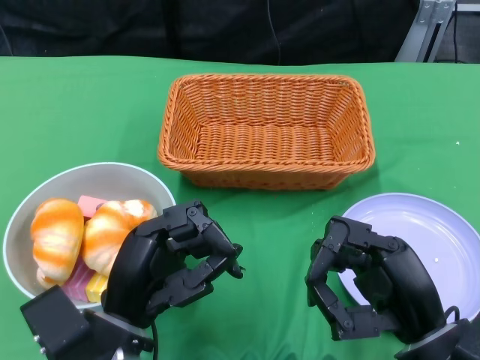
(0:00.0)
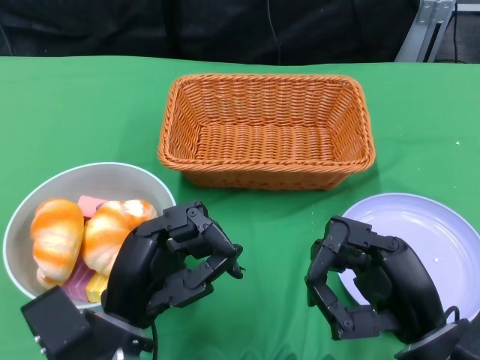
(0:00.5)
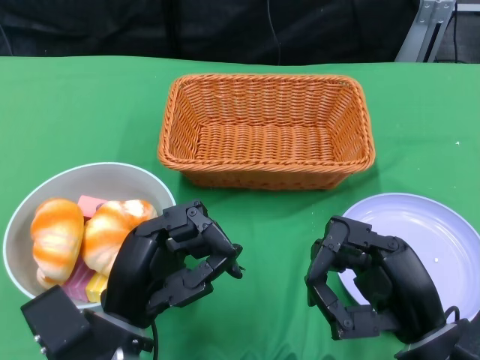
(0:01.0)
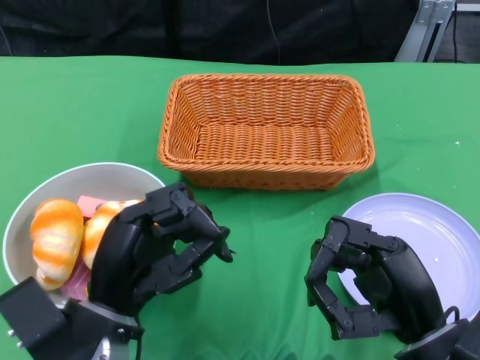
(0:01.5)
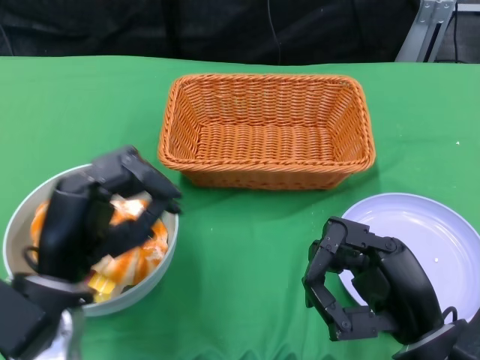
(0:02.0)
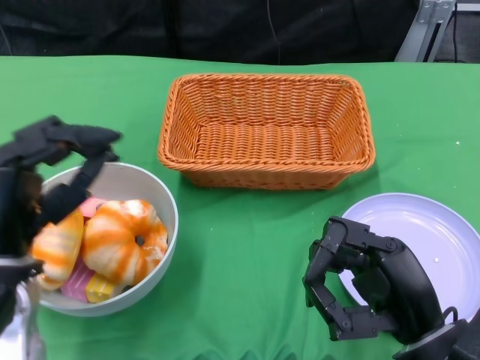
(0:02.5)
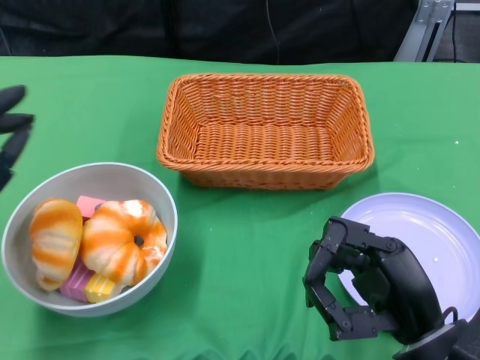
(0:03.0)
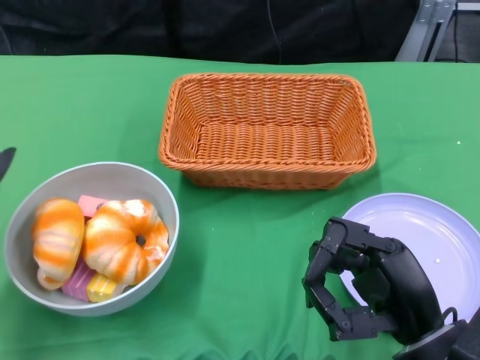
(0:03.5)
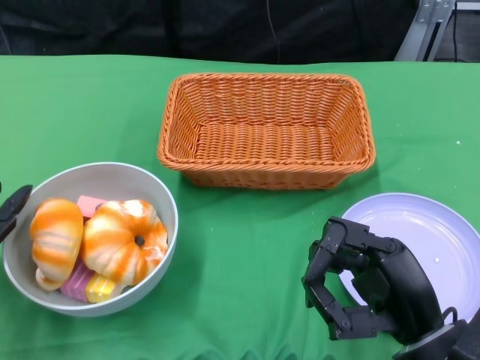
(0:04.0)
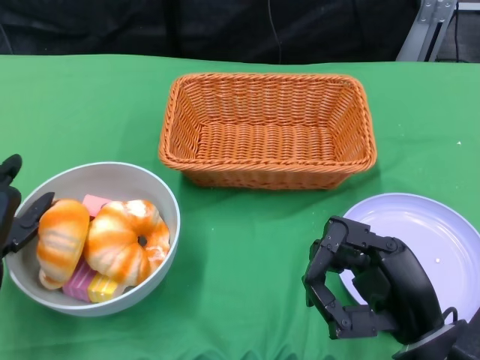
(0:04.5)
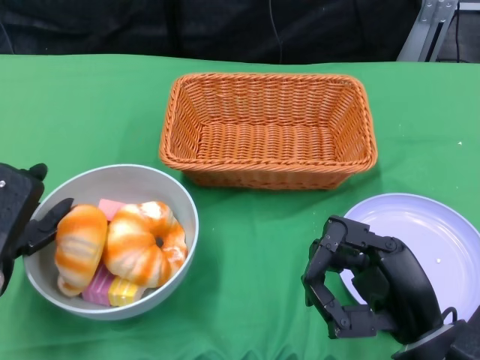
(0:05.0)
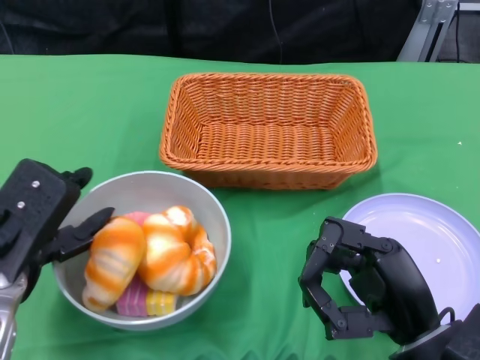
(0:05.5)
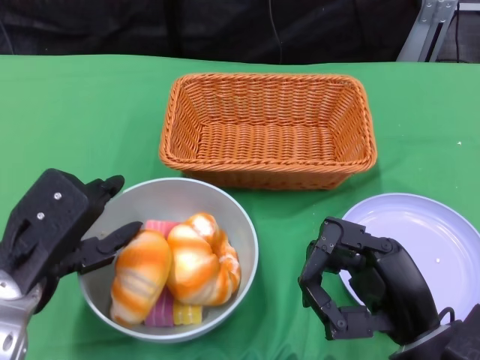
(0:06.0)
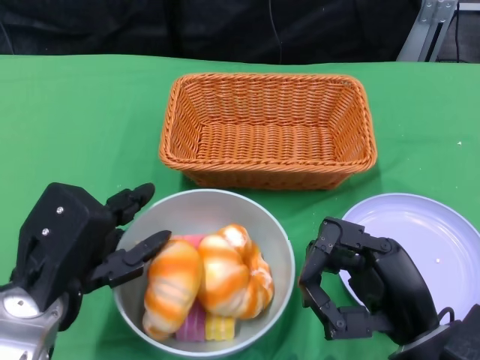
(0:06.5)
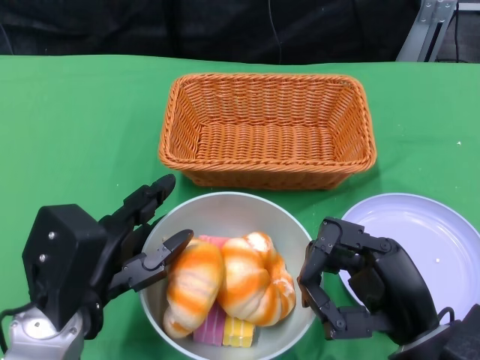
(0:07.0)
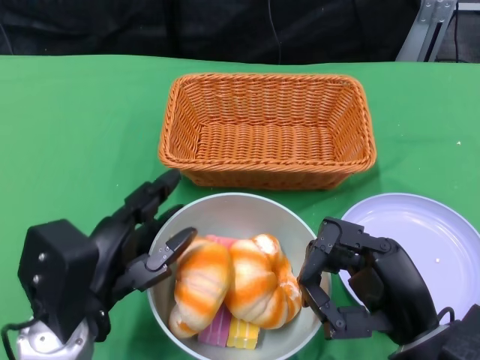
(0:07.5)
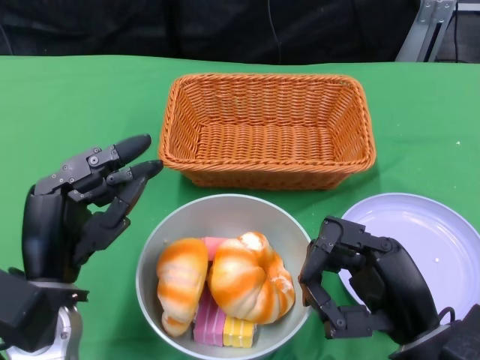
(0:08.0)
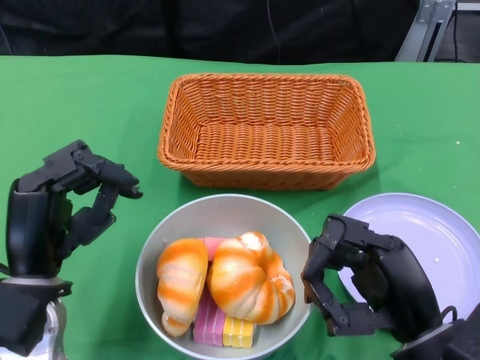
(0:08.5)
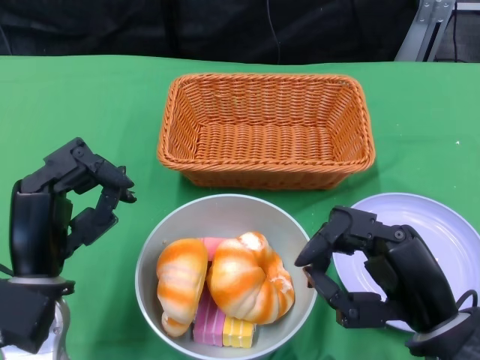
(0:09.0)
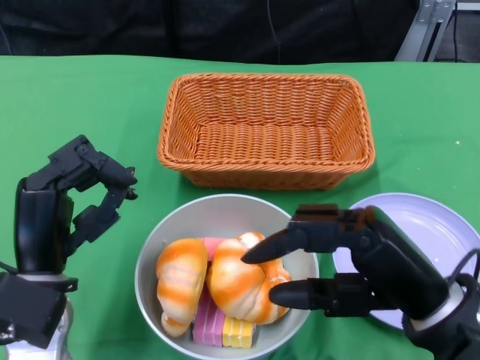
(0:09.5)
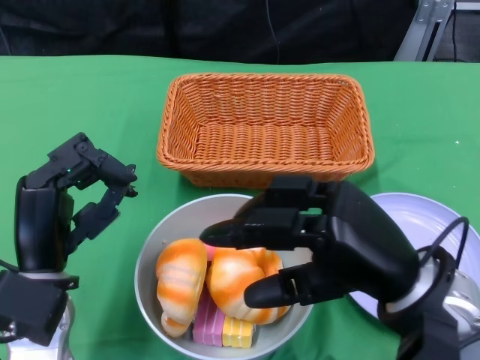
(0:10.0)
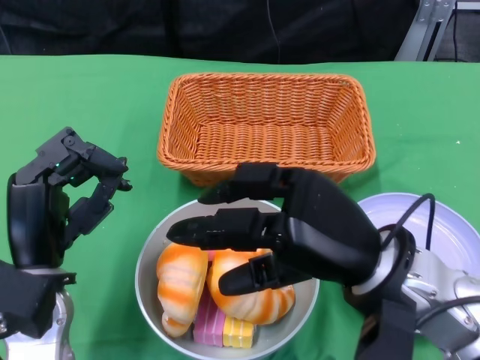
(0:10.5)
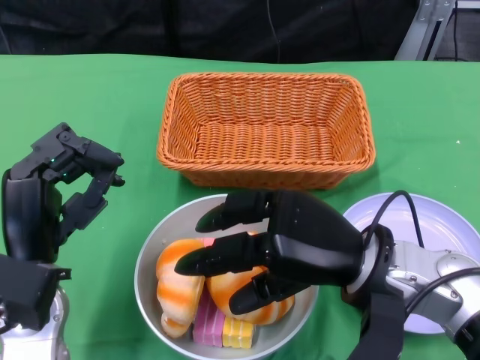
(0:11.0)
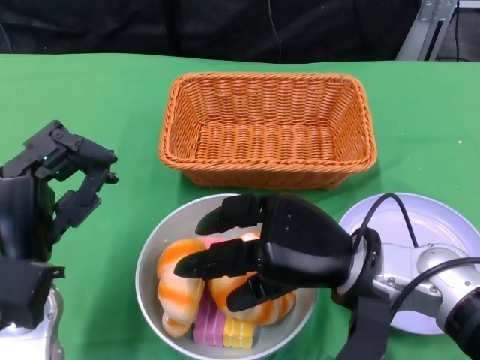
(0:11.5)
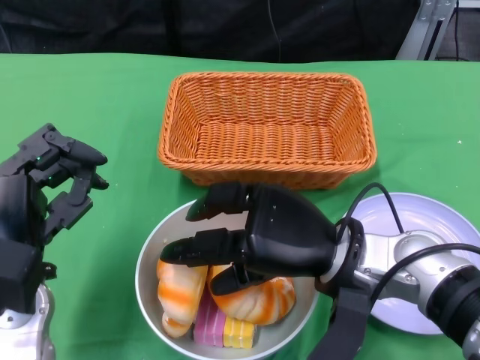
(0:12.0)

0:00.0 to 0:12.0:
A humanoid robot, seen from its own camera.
Step, 0:00.0 to 0:08.5: Push the bowl to the center of the table using the left gripper.
0:02.0 to 0:04.0: The left hand is displaced to the left by some 10 cm.
0:04.0 to 0:06.0: The left hand shifts some 5 cm to the right and upward.
0:08.0 to 0:10.0: The right hand is displaced upward by some 5 cm.
0:10.0 to 0:12.0: The right hand goes some 10 cm to the left and forward.

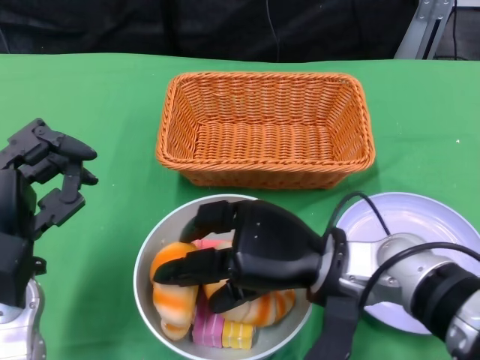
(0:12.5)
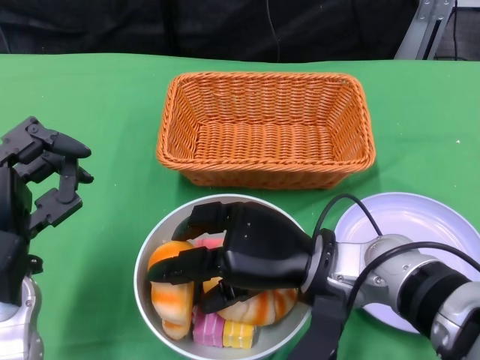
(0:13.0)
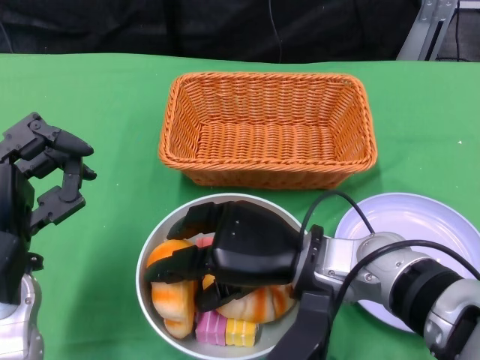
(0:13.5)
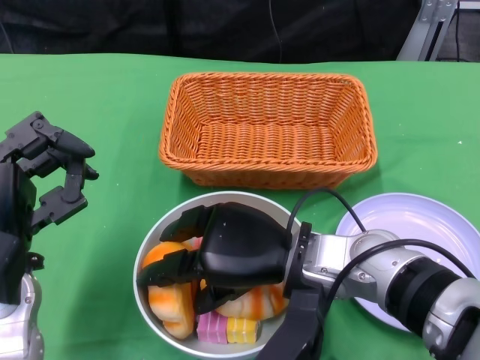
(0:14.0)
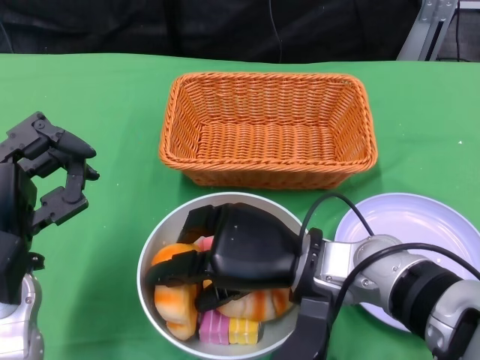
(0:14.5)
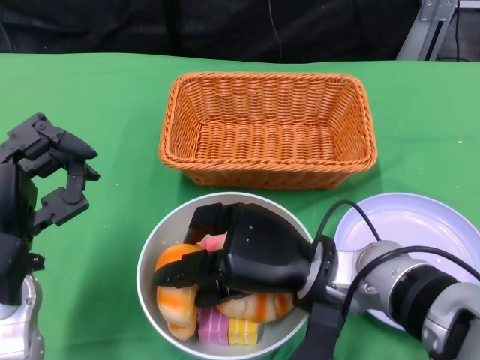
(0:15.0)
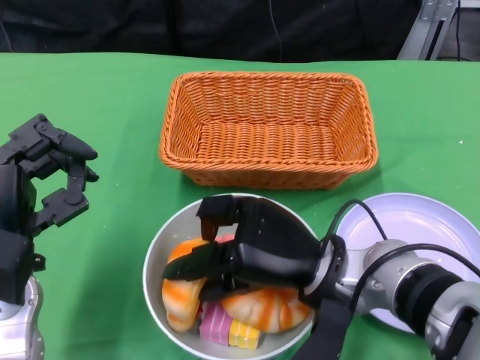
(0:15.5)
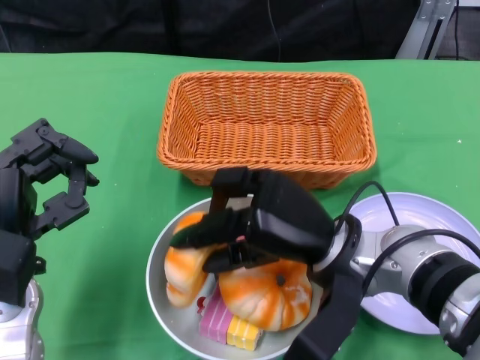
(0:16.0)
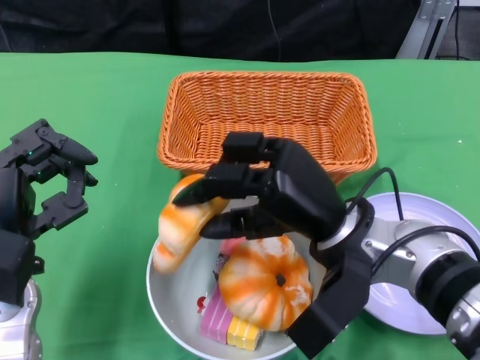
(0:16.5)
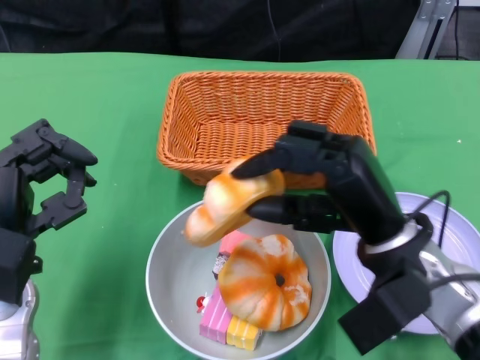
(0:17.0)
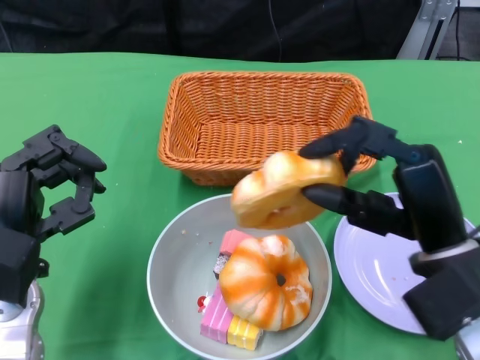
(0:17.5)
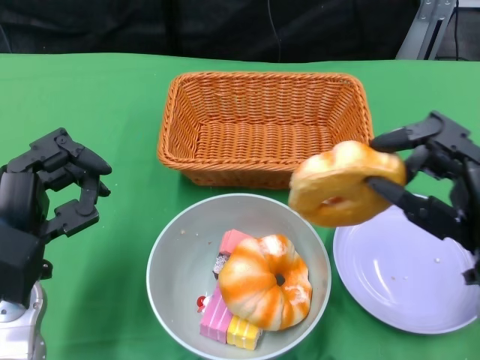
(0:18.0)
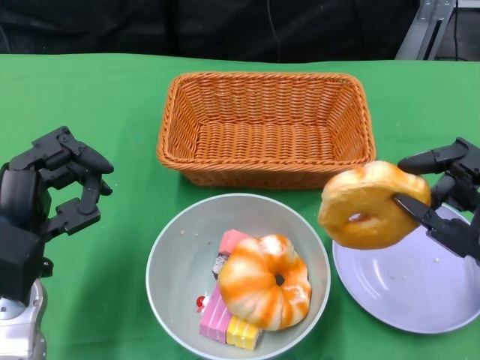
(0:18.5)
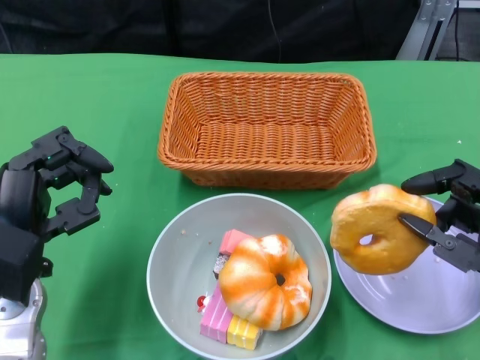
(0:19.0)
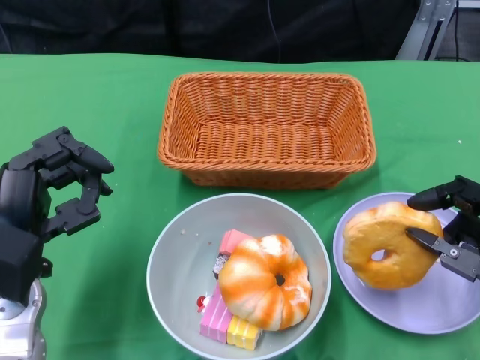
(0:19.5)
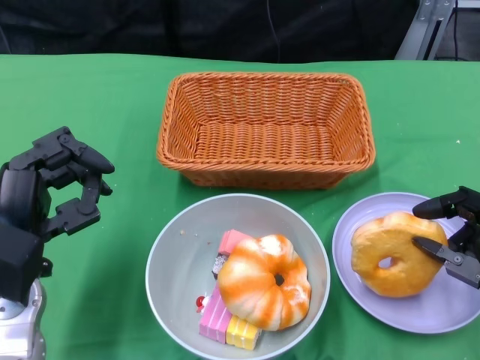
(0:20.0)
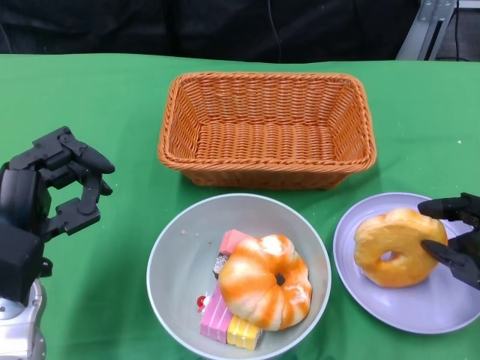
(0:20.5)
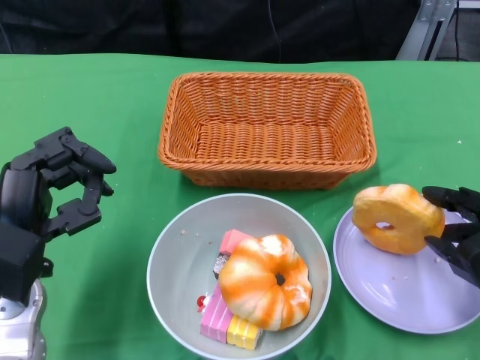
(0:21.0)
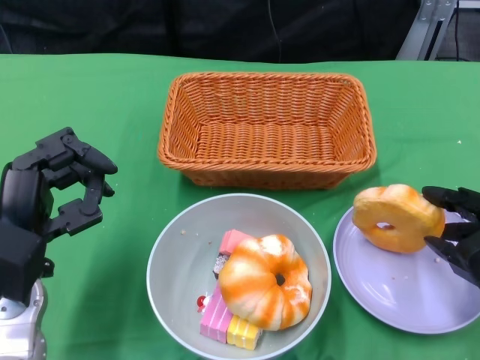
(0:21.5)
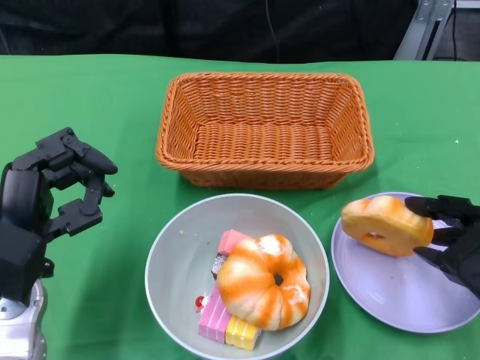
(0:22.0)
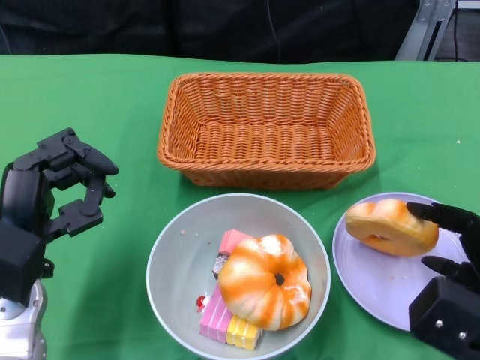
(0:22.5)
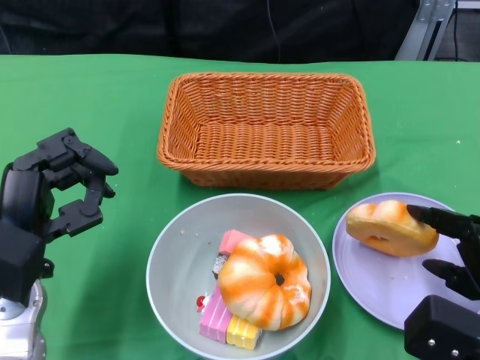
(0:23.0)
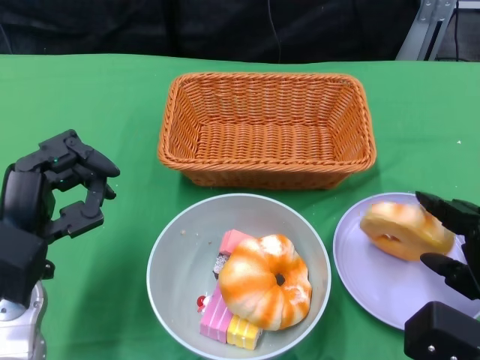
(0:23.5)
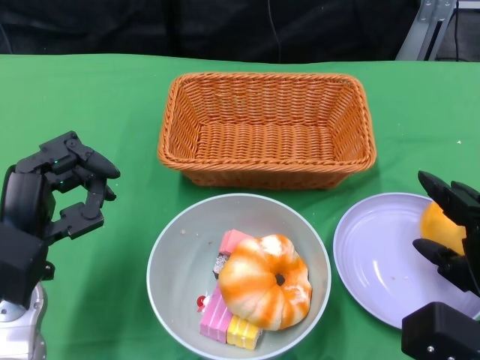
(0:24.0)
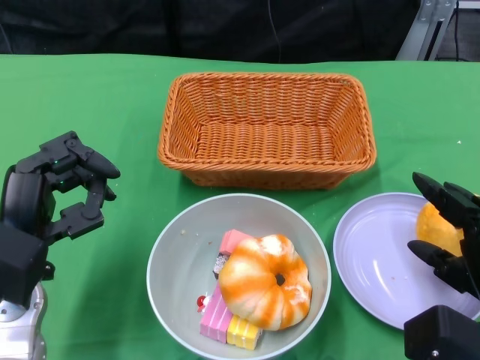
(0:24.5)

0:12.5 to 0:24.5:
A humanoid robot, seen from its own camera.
0:16.5 to 0:18.5: The right hand goes roughly 15 cm to the right and backward.
0:22.5 to 0:24.5: The hands make only small movements.

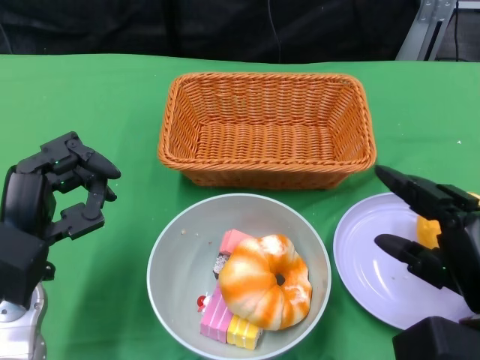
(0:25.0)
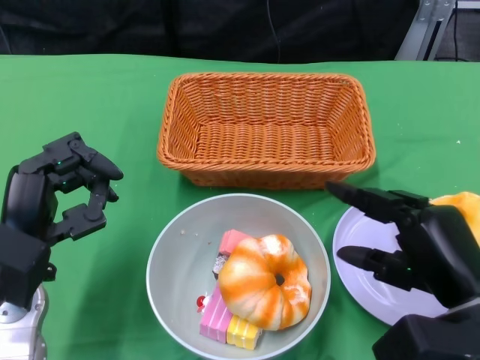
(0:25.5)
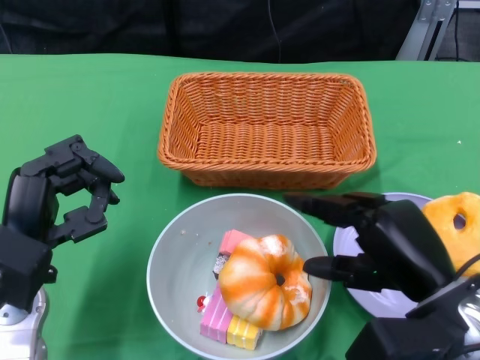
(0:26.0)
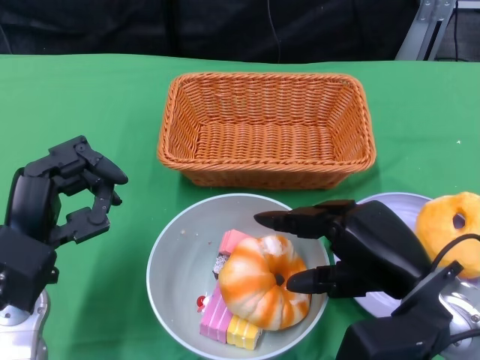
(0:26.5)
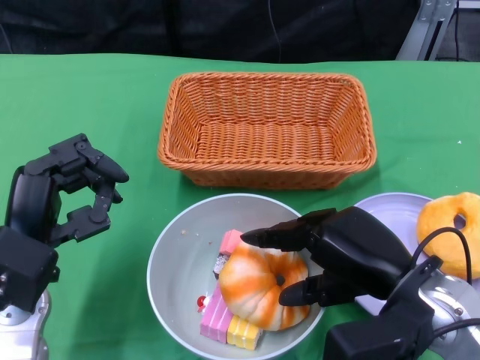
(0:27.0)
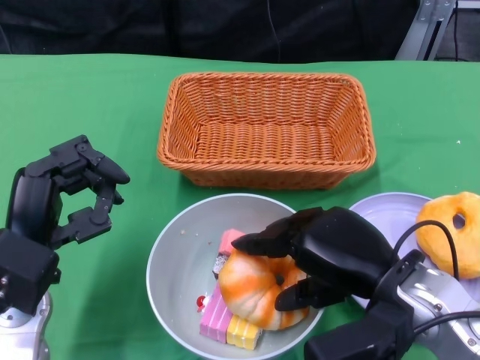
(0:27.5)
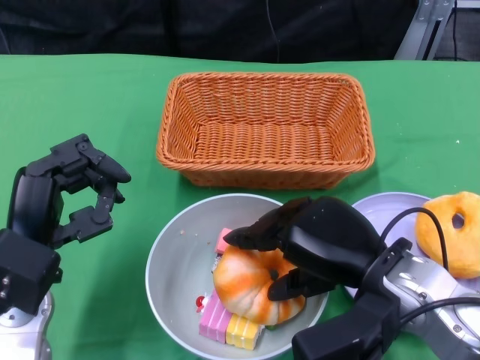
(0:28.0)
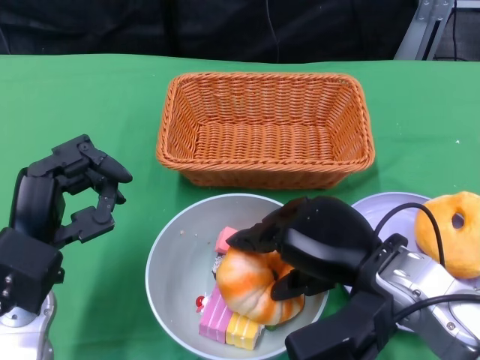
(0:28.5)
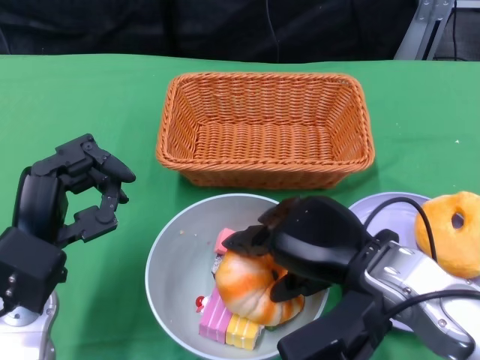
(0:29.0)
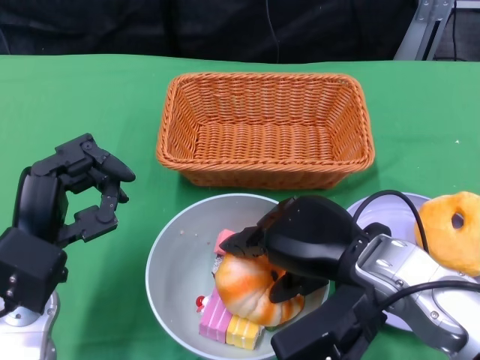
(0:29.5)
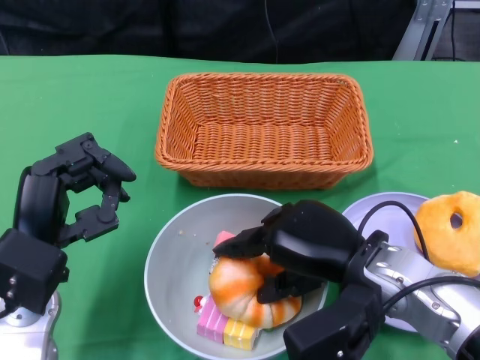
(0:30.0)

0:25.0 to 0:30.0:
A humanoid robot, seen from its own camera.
0:25.0 to 0:27.5: The right hand is displaced to the left by approximately 10 cm.
